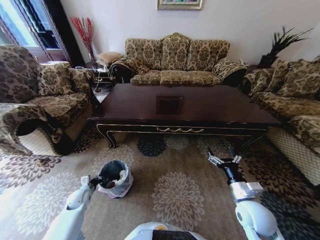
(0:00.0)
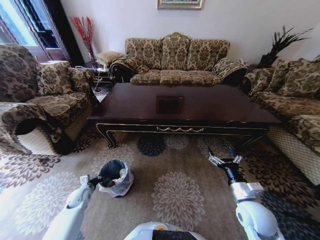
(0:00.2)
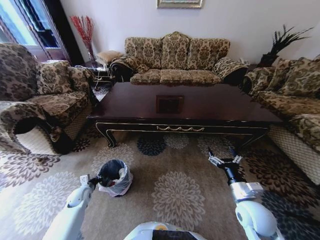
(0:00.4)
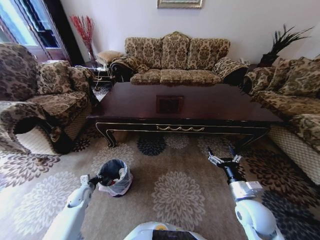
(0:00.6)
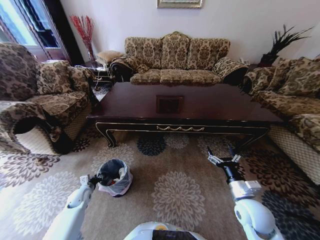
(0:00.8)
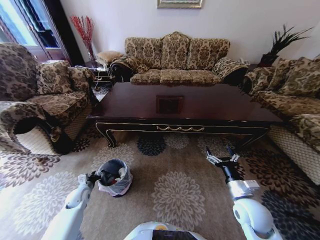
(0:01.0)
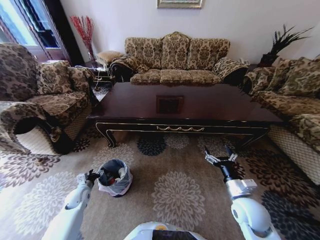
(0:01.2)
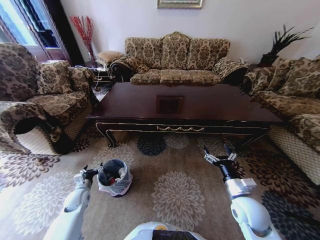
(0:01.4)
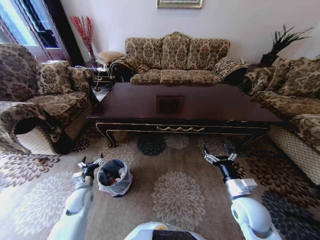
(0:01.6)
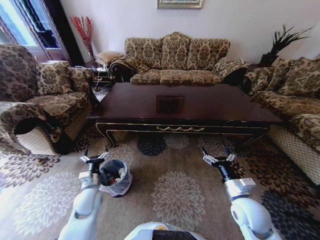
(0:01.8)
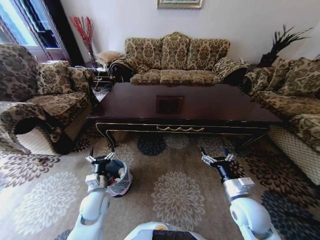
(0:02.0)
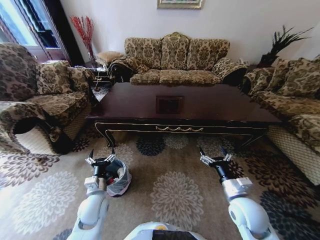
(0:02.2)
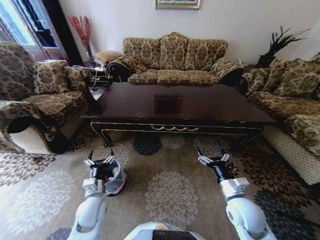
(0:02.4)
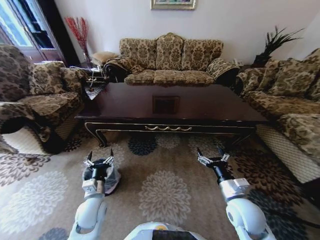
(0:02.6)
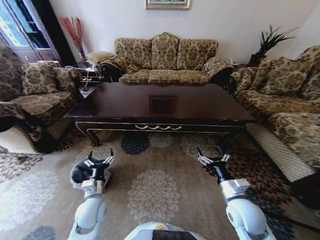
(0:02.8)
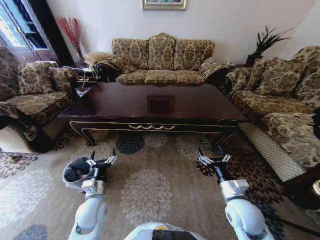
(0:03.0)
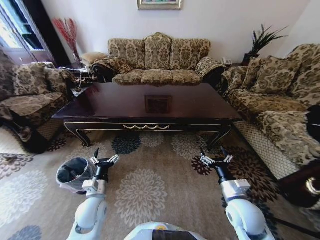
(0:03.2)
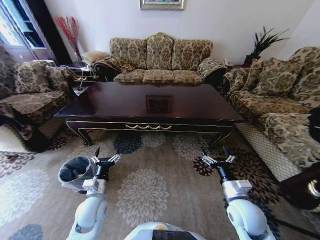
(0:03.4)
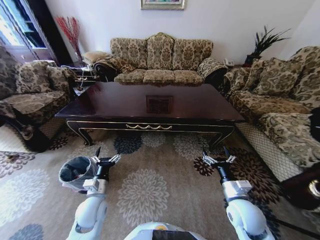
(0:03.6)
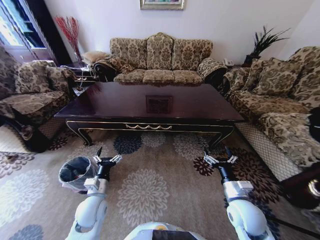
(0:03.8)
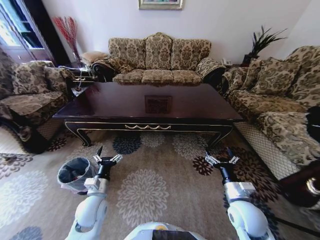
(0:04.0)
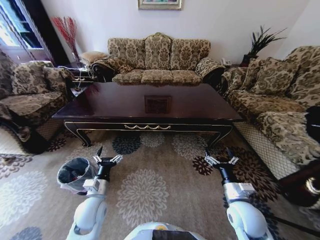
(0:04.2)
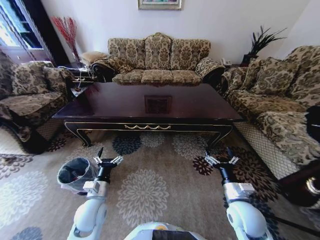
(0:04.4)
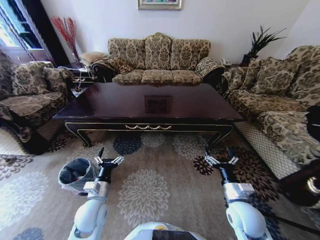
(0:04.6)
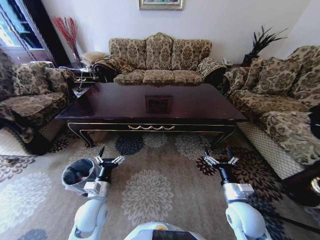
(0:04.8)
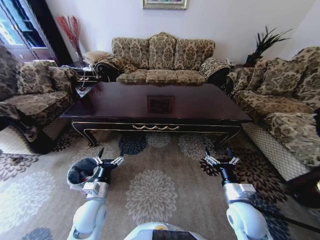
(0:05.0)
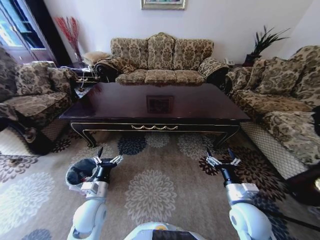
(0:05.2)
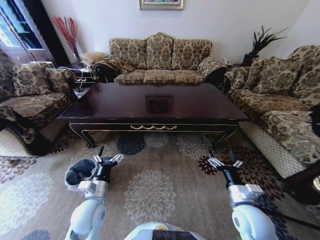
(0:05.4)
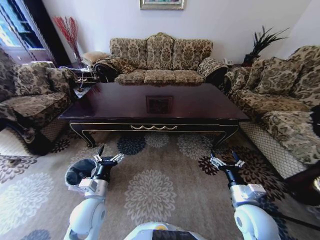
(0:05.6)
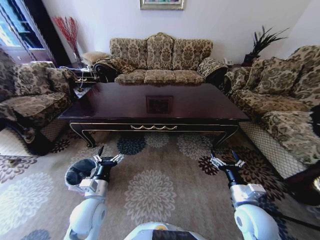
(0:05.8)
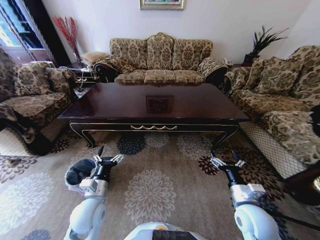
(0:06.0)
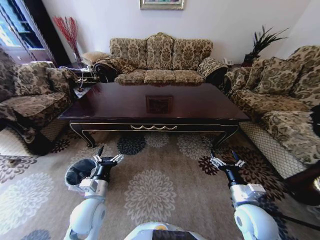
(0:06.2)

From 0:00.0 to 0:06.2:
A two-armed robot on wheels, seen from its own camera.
Task of the whole recording: Move to the front of the table and place the trash on the table into the trash bin.
From 0:00.0 to 0:01.6: The left gripper is displaced upward and to the right by some 10 cm, and opens.
From 0:01.6 to 0:03.2: The left gripper travels to the right and upward by about 10 cm.
From 0:03.2 to 0:04.6: There are only small adjustments of the grippers.

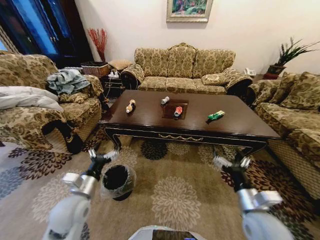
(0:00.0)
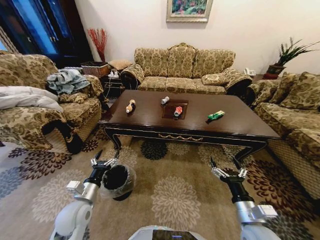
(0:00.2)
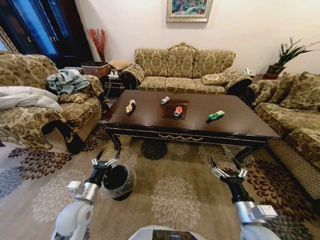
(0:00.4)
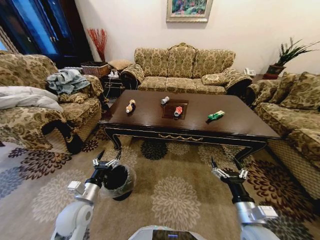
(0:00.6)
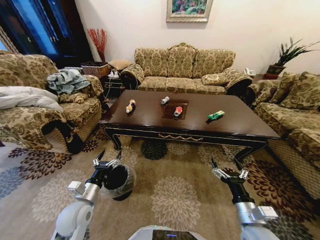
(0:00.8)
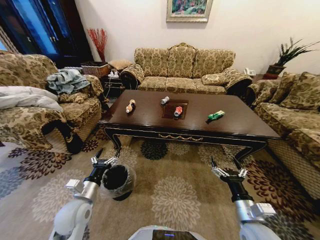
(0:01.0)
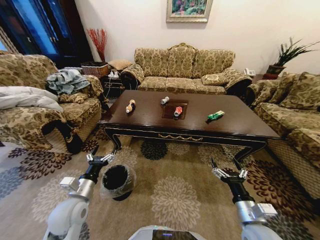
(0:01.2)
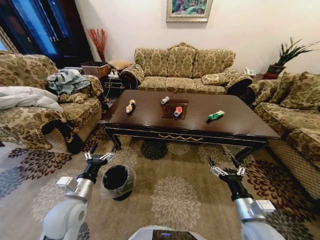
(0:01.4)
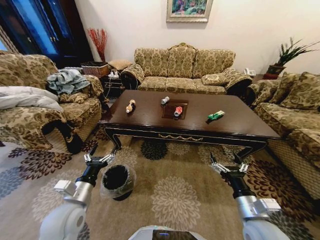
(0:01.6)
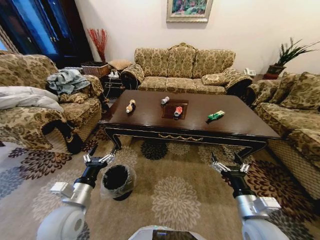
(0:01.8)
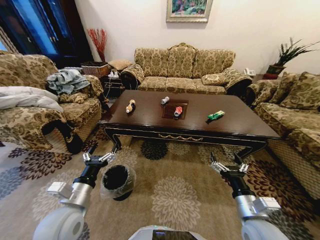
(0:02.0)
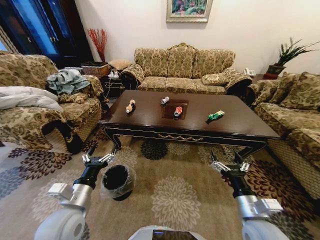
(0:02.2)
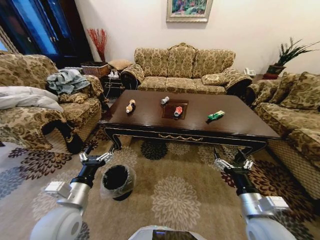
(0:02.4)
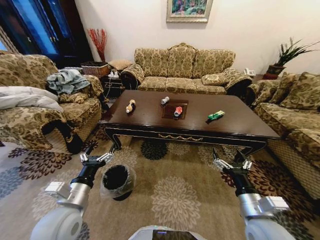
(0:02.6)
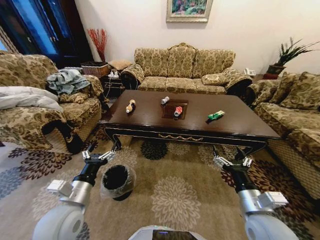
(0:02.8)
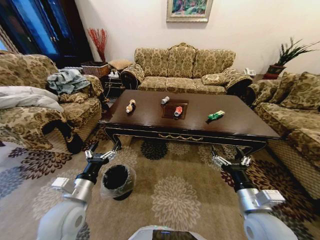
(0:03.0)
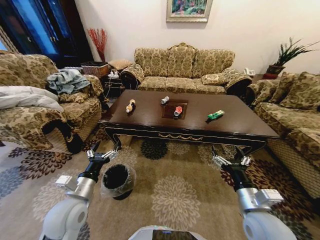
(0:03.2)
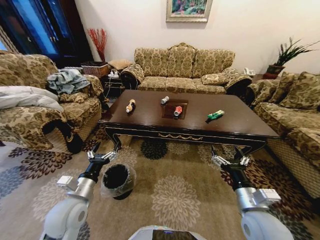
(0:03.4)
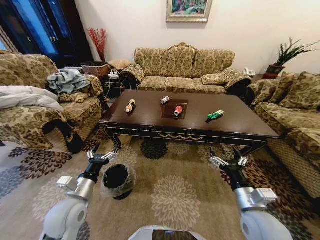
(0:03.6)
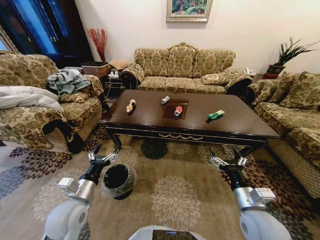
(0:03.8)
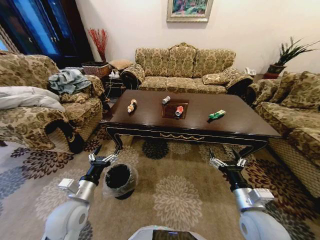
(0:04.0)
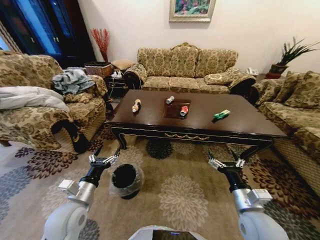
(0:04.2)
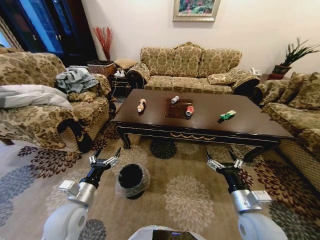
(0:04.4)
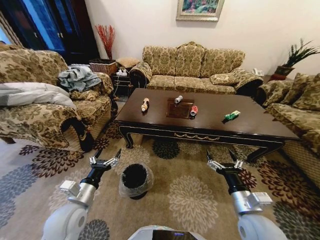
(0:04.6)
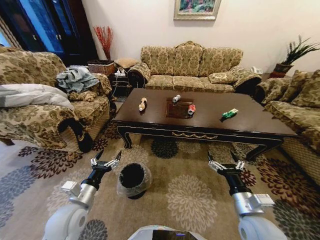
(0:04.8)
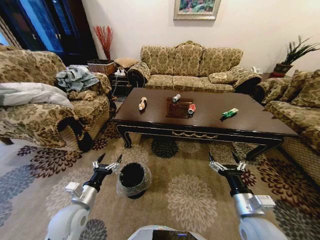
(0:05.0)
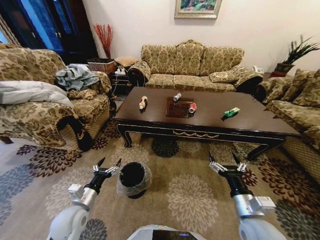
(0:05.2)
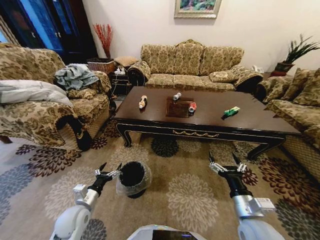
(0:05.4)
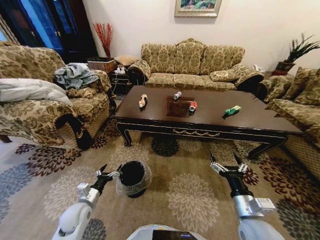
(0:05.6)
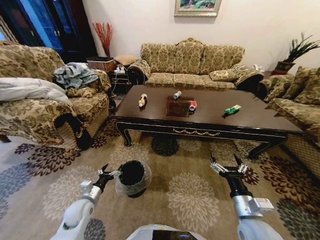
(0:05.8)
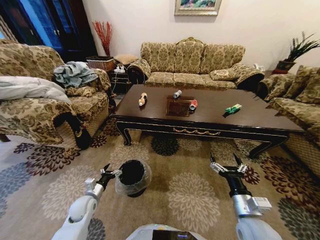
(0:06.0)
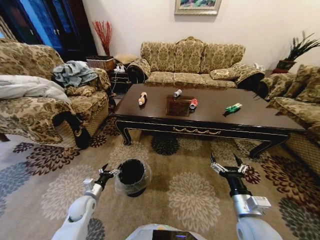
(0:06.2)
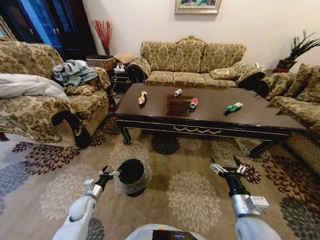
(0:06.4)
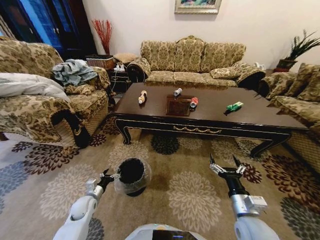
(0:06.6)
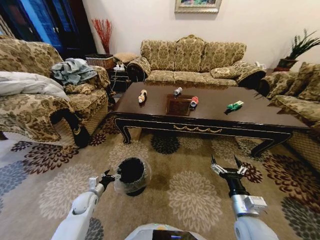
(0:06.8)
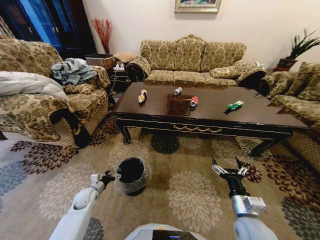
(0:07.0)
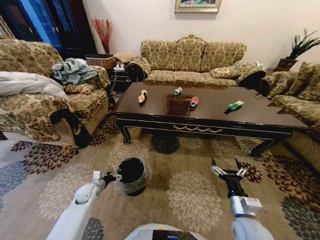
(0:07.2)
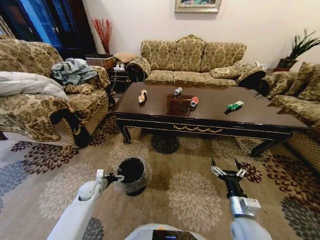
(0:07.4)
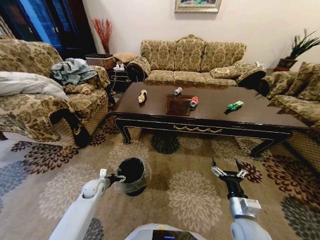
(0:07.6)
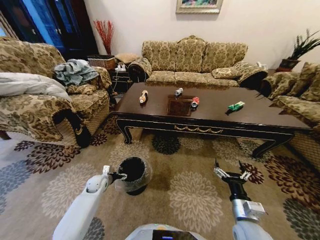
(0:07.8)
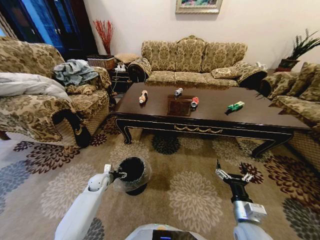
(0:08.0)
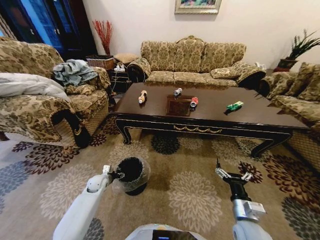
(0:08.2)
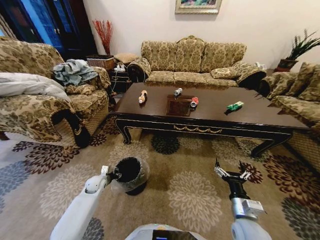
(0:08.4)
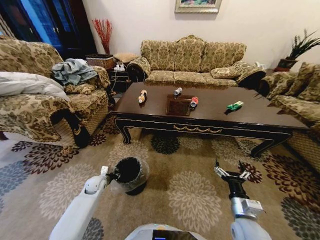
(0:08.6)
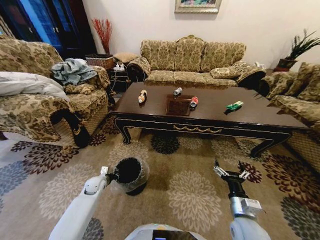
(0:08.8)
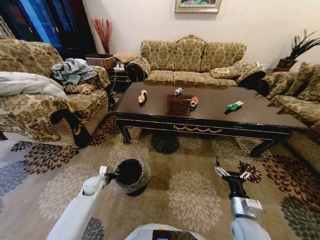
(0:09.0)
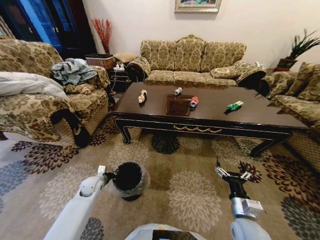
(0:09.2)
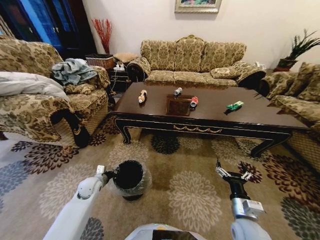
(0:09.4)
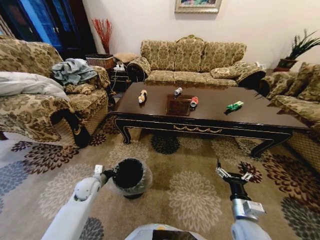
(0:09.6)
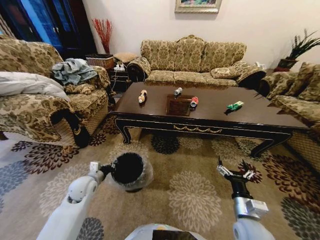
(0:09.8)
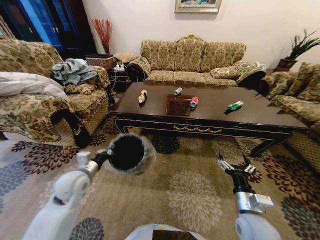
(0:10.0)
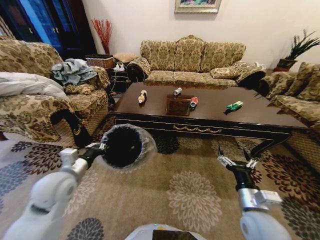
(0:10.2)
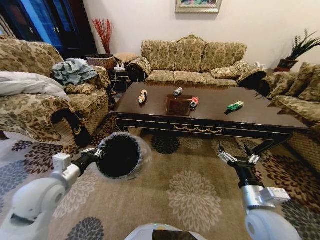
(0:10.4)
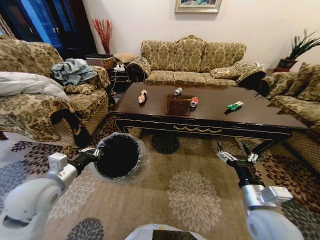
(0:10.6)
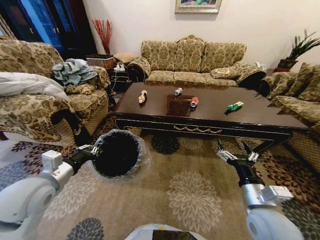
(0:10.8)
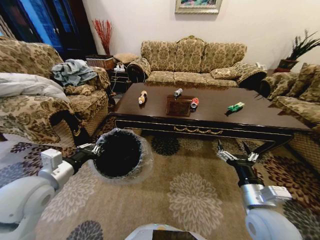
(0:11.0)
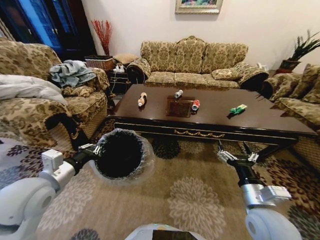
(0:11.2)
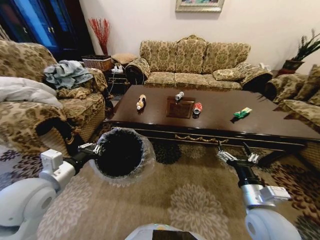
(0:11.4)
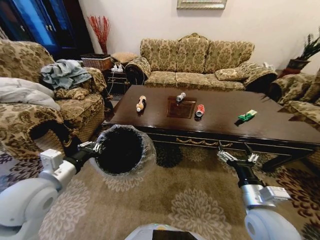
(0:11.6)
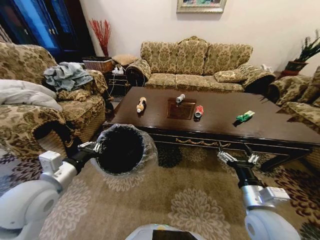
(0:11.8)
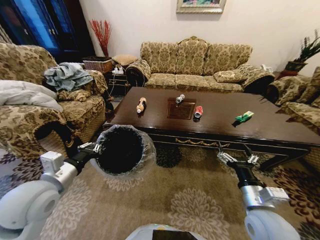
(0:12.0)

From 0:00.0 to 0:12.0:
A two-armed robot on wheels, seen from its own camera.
Task of the whole recording: Move to the front of the table and place the trash on the table into the trash bin.
From 0:01.6 to 0:03.0: There are only small adjustments of the grippers.
From 0:04.4 to 0:06.0: The left gripper heads downward and forward, covering roughly 15 cm.
From 0:06.0 to 0:07.6: The left gripper goes about 10 cm forward.
From 0:07.6 to 0:09.0: The left gripper closes.
From 0:09.0 to 0:10.4: The left gripper travels upward and backward by about 30 cm, while the right gripper travels upward by some 10 cm.

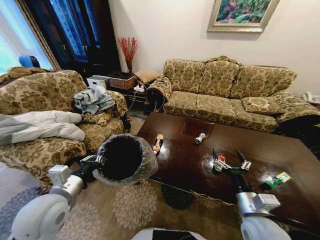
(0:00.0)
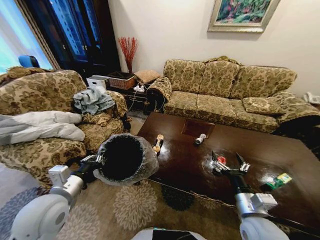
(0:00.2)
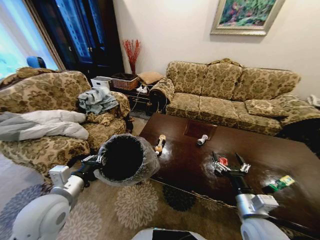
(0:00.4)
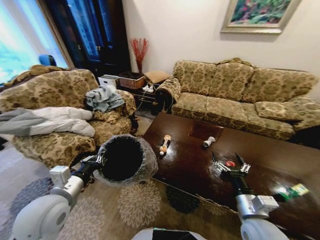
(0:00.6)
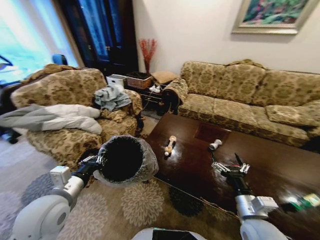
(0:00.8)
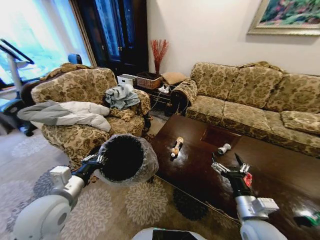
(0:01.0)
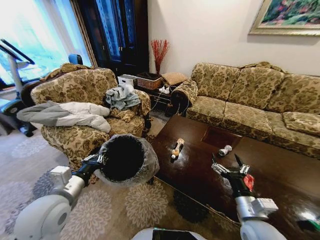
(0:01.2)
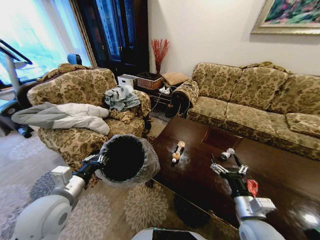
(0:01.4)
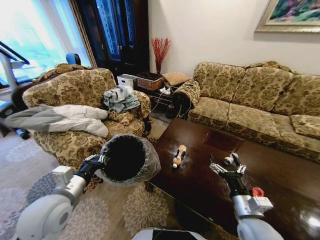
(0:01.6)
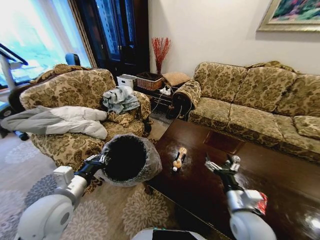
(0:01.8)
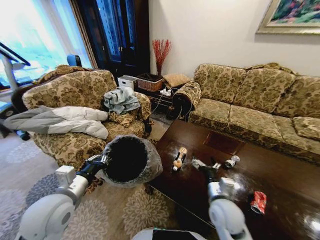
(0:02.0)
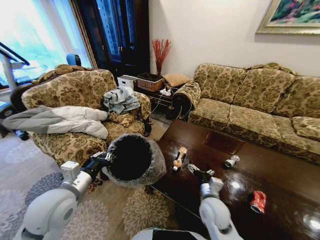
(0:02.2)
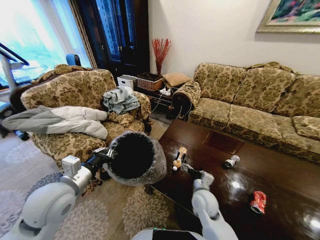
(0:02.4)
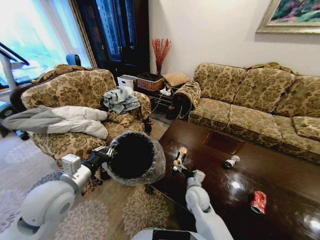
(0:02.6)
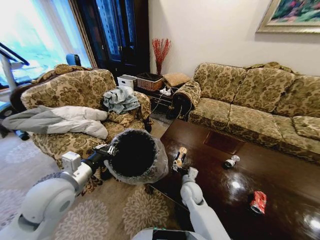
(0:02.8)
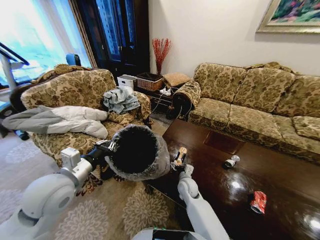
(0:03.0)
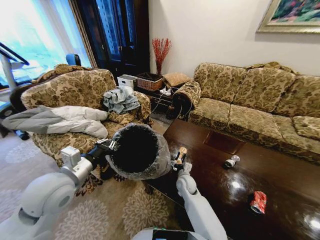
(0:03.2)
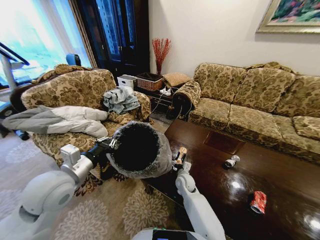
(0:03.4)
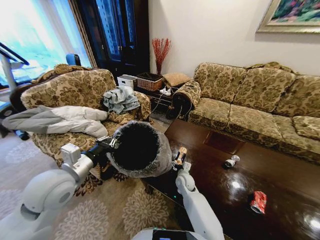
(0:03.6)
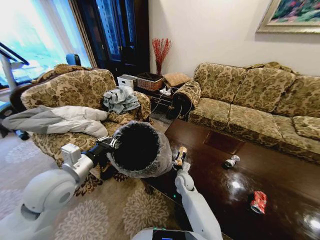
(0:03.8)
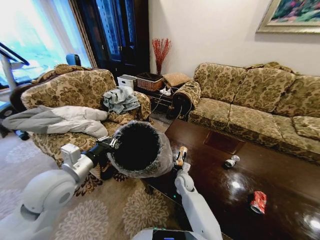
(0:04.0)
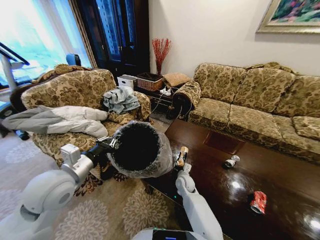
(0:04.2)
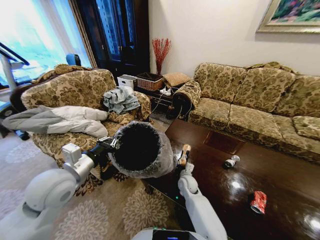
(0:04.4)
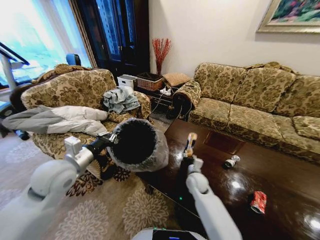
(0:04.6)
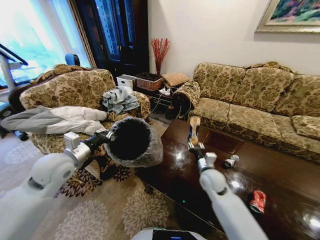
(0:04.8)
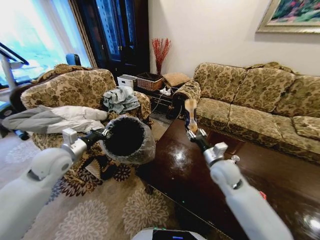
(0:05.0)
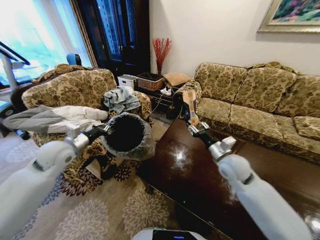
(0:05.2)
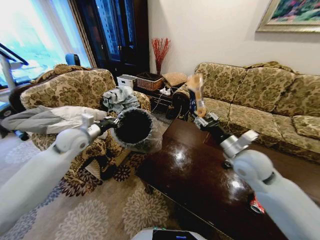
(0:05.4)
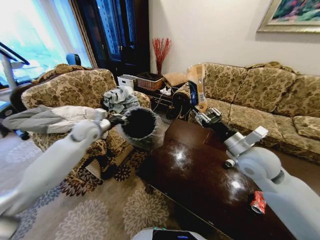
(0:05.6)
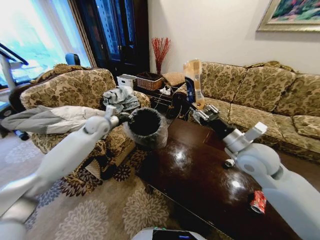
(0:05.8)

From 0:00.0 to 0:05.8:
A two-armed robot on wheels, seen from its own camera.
Task of the whole recording: Move to the front of the table and place the trash on the table into the trash bin.
From 0:01.4 to 0:02.8: The right gripper is displaced forward, to the left and downward by about 25 cm.
From 0:02.8 to 0:04.4: The right gripper heads forward, covering roughly 5 cm, and closes.
From 0:04.4 to 0:05.8: The right gripper moves upward and to the right, about 35 cm. The left gripper travels forward by roughly 30 cm.
